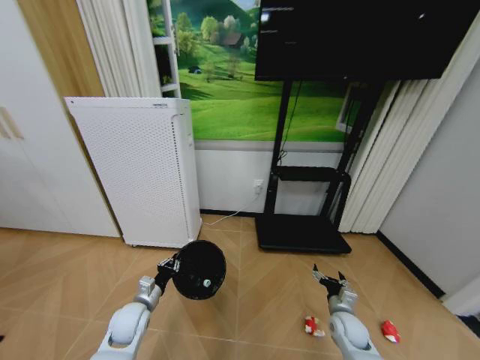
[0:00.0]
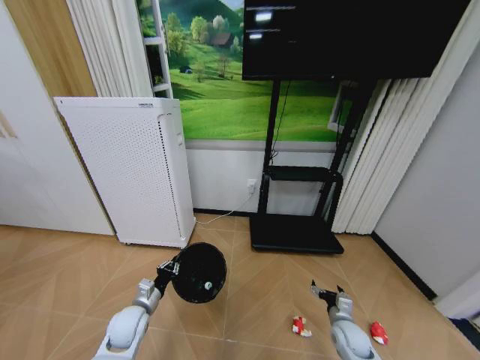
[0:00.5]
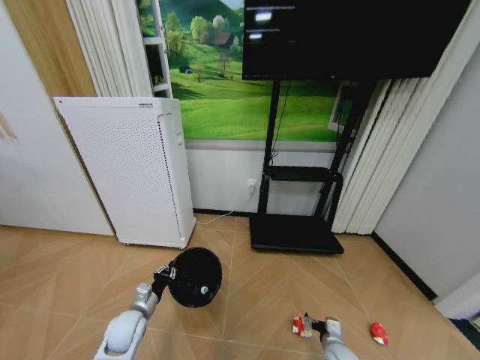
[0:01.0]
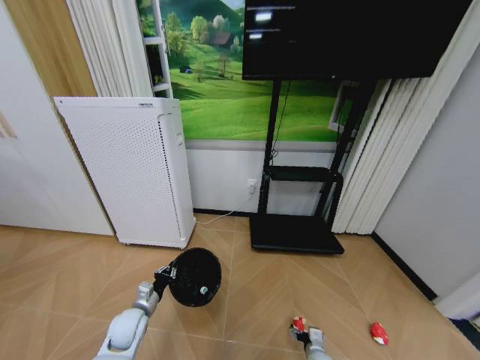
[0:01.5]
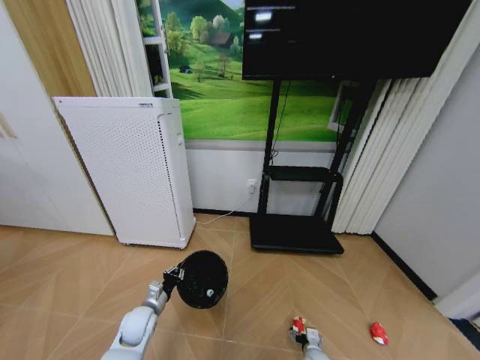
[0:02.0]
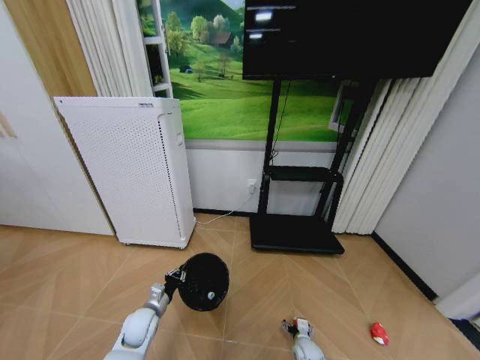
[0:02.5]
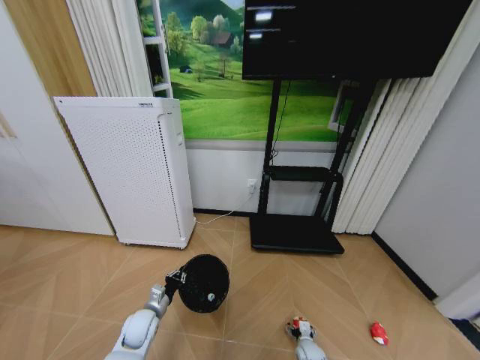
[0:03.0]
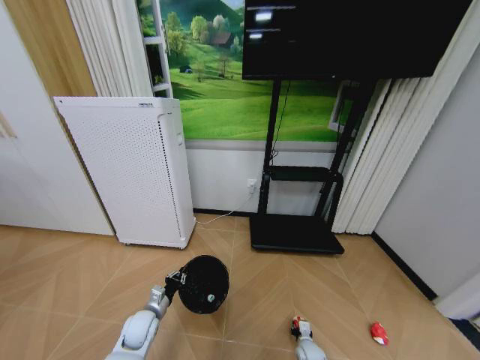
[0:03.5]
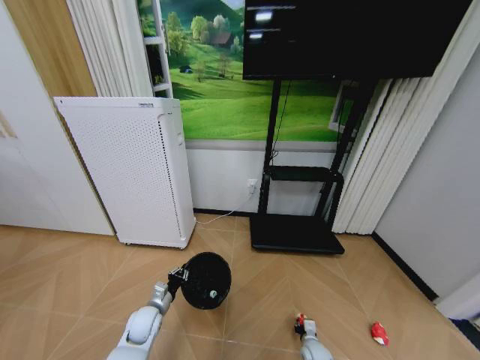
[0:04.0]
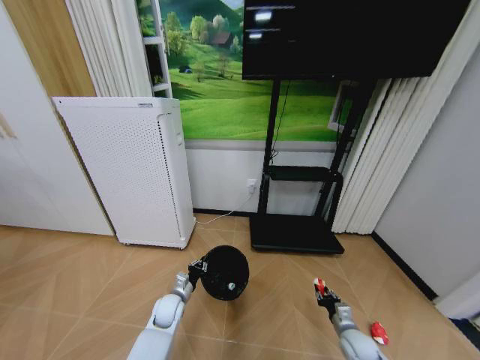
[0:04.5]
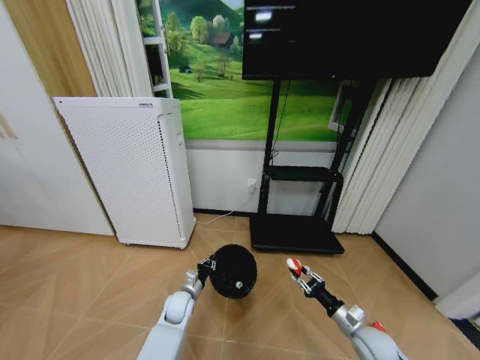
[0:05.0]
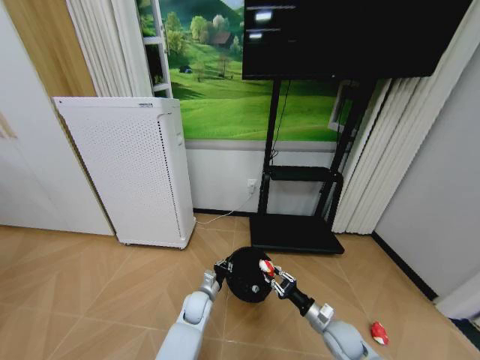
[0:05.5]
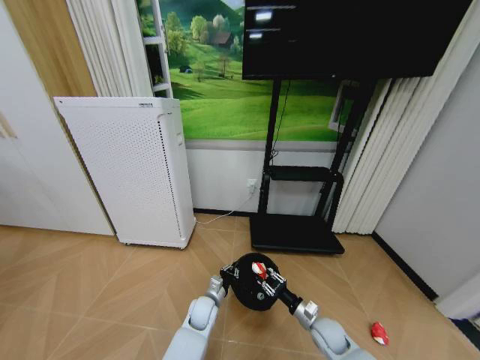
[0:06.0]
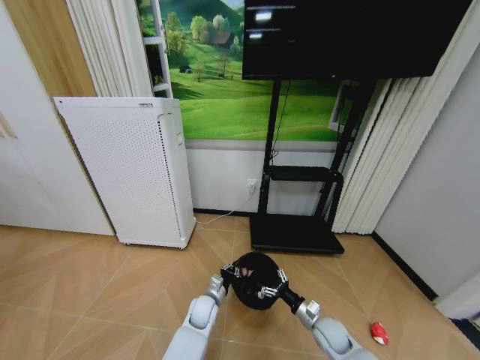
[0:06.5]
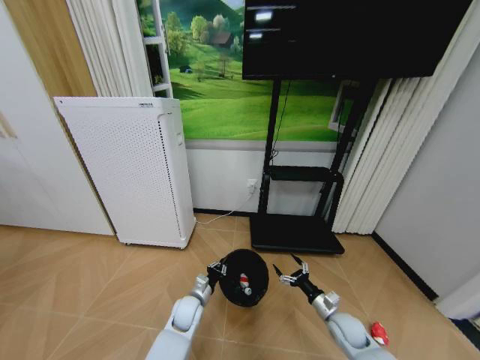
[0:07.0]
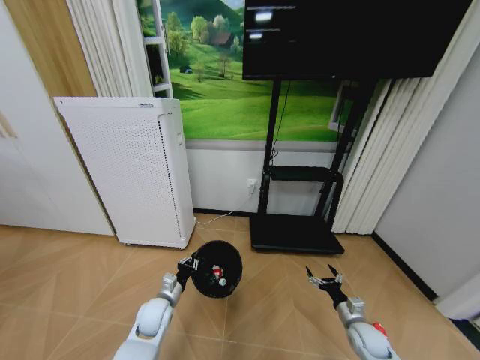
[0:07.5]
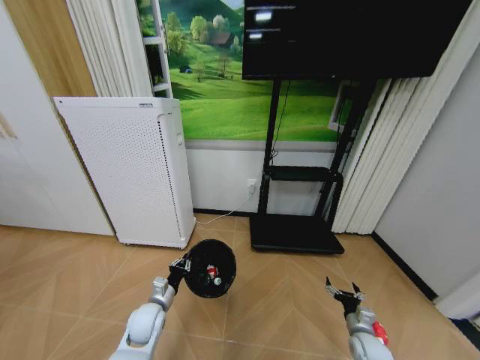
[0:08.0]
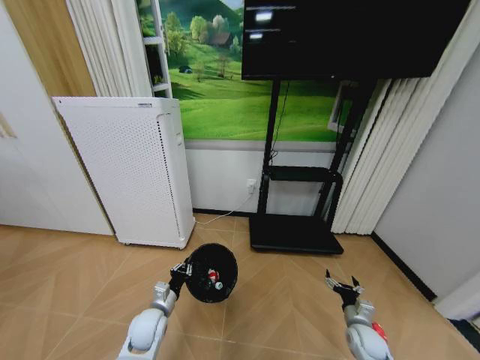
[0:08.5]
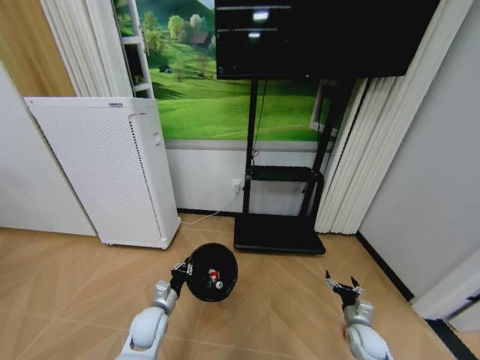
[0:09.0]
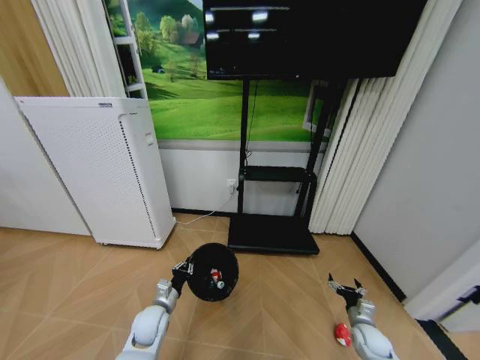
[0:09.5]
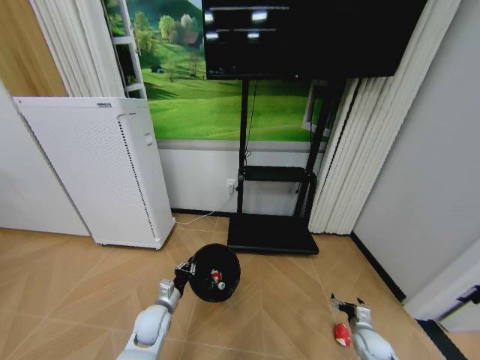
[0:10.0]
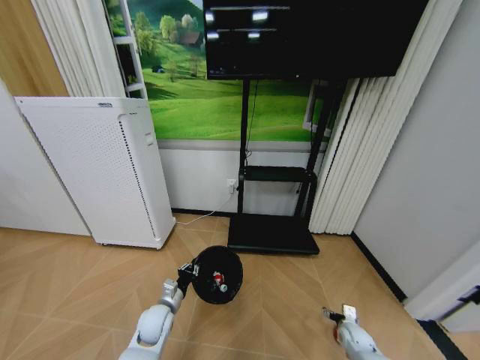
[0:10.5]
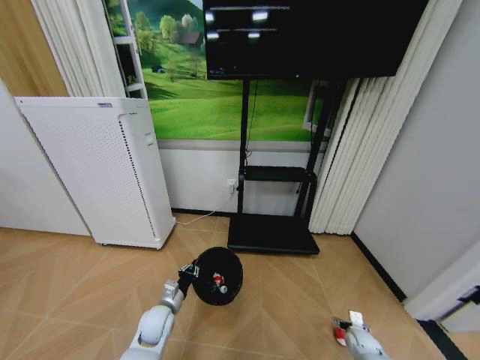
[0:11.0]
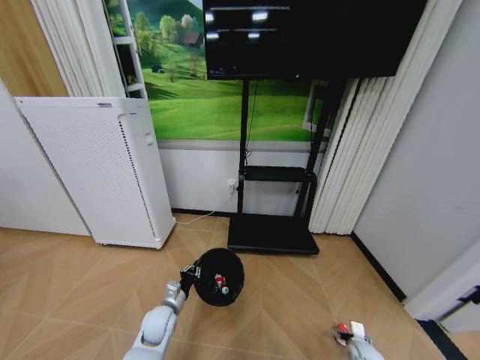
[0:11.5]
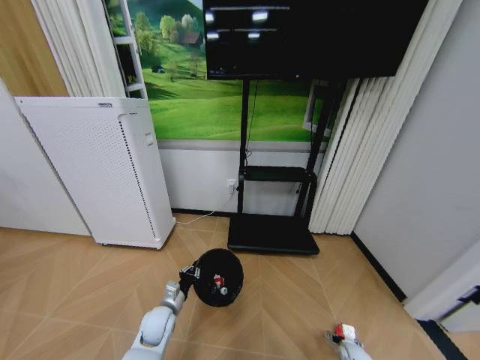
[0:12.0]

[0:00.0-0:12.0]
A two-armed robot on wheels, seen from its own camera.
Task of the whole recording: Pick up the trash bin and place the garbage on the floor into it.
0:00.0 to 0:02.0: The right gripper is displaced downward, to the left and backward by approximately 15 cm.
0:02.0 to 0:04.0: The right gripper closes its fingers.
0:04.0 to 0:06.0: The left gripper shifts some 20 cm to the right, while the right gripper goes some 15 cm upward.
0:06.0 to 0:08.0: The right gripper goes roughly 10 cm to the right, and opens its fingers, while the left gripper goes approximately 15 cm to the left and upward.
0:10.0 to 0:12.0: The right gripper travels downward by approximately 10 cm.

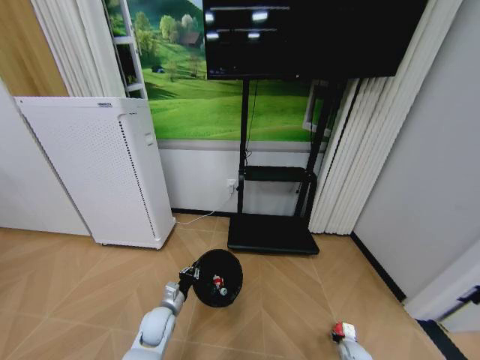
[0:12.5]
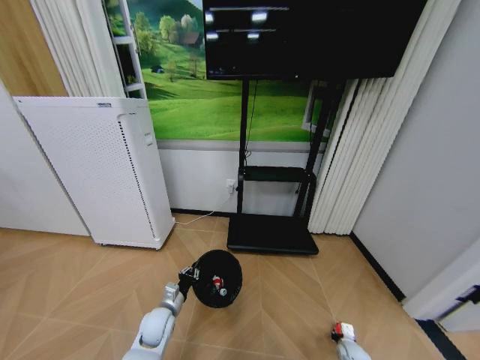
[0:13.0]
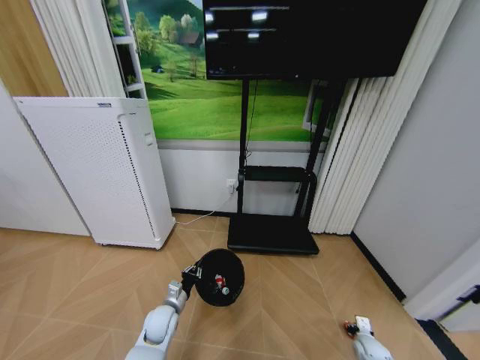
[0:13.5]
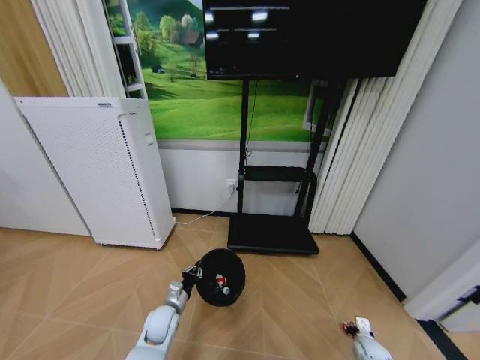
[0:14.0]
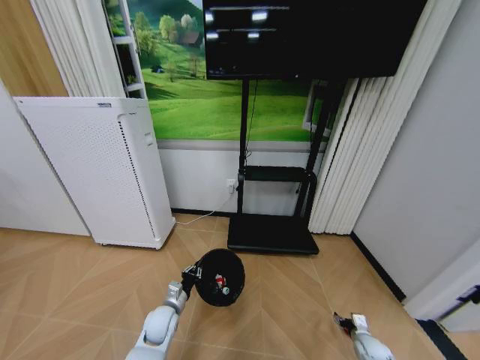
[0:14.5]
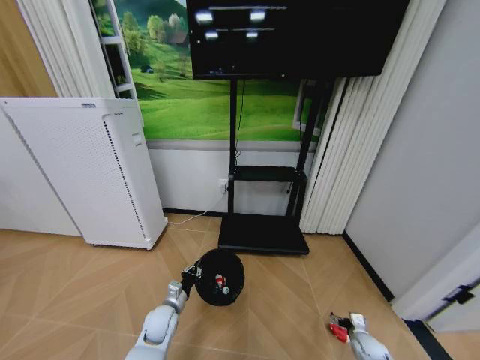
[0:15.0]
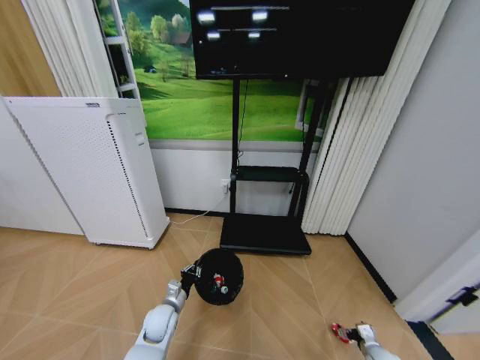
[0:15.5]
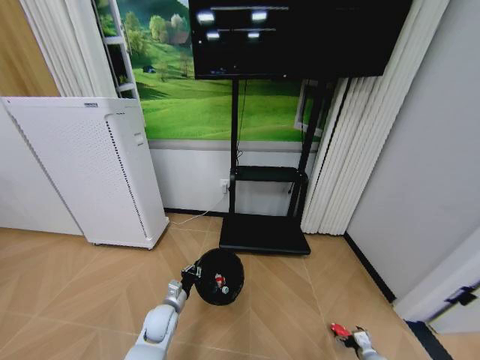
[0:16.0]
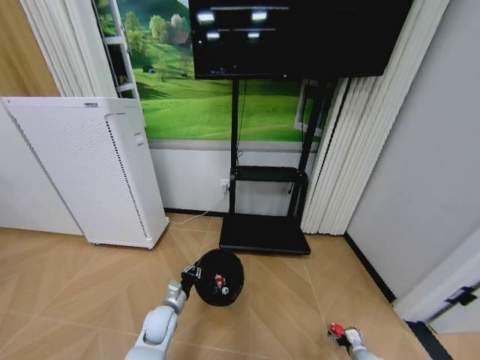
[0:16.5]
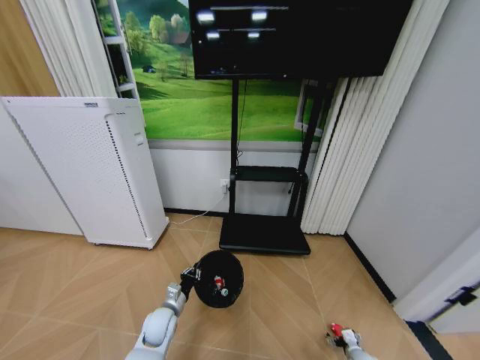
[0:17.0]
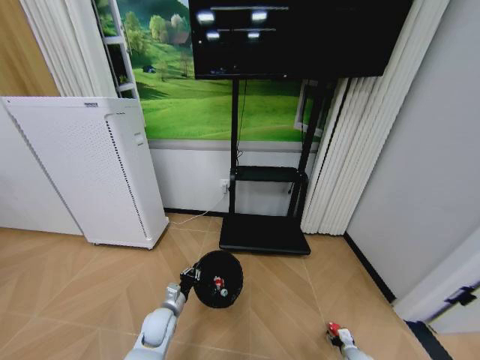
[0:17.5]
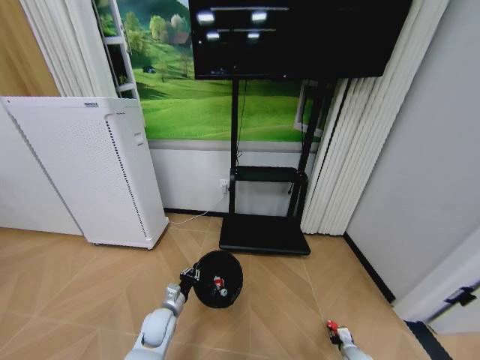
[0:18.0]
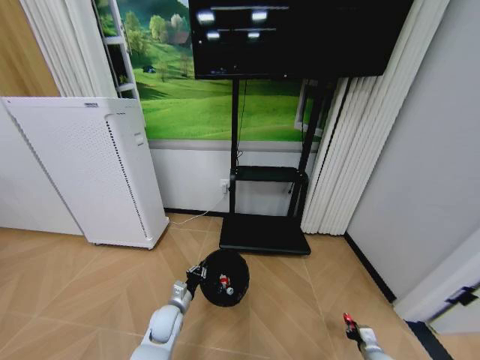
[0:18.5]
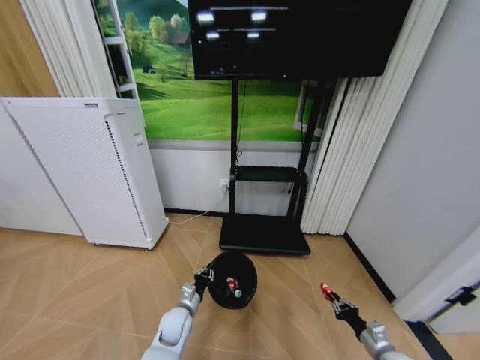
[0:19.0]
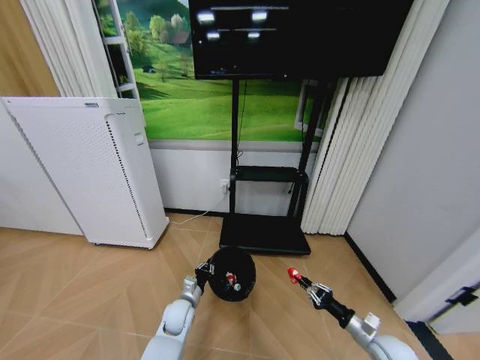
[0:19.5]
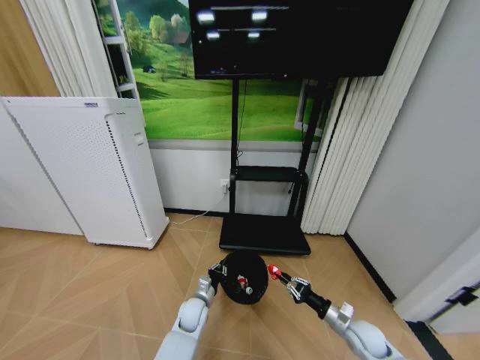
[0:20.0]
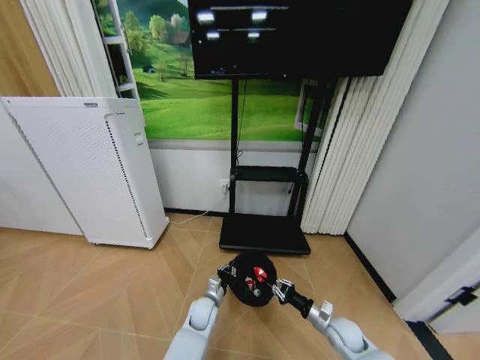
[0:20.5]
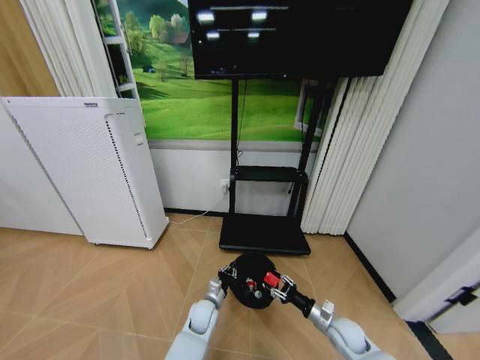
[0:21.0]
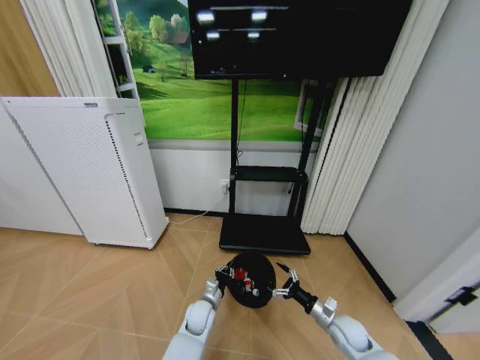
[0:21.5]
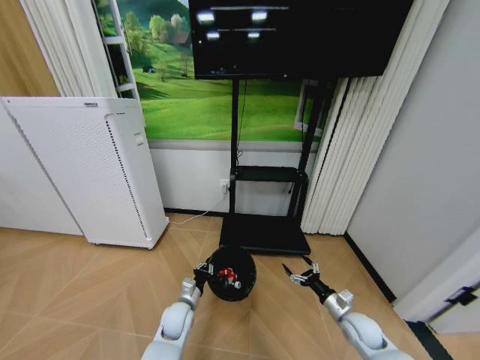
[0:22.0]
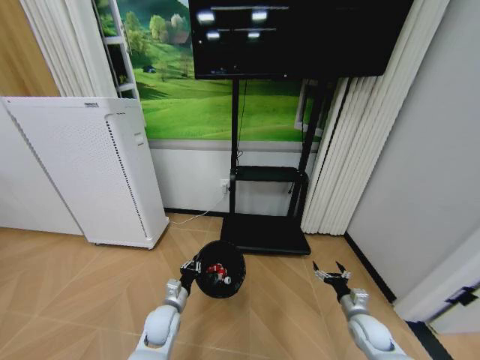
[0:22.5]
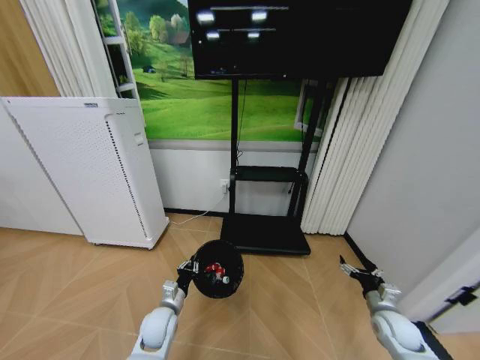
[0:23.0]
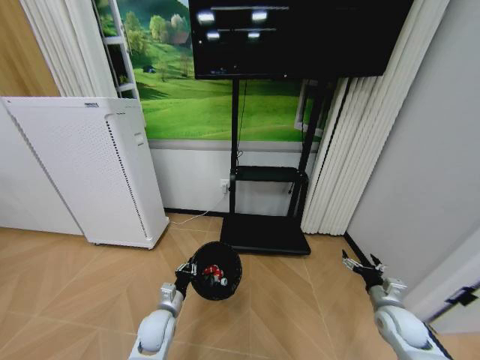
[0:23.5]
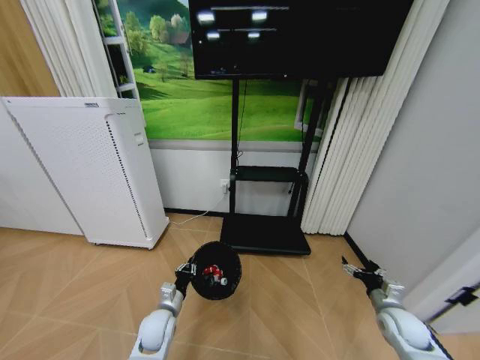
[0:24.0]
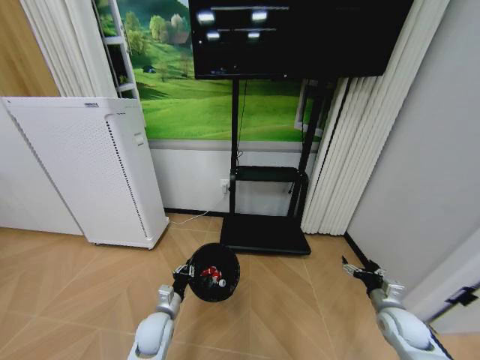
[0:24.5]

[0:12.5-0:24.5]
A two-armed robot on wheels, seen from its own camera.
Task of the whole recording: Pick up the trash bin and place the garbage on the floor into it.
0:12.5 to 0:14.5: The right gripper travels upward by some 5 cm, and closes, then opens again.
0:14.5 to 0:16.5: The right gripper changes place by some 5 cm.
0:16.5 to 0:18.5: The right gripper closes up.
0:18.5 to 0:20.5: The right gripper heads to the left, upward and forward, covering about 20 cm. The left gripper heads to the right, covering approximately 10 cm.
0:20.5 to 0:22.5: The right gripper heads to the right, covering roughly 5 cm, and opens; the left gripper is displaced to the left and upward by about 10 cm.
0:22.5 to 0:24.5: The right gripper travels upward and to the right by roughly 10 cm.

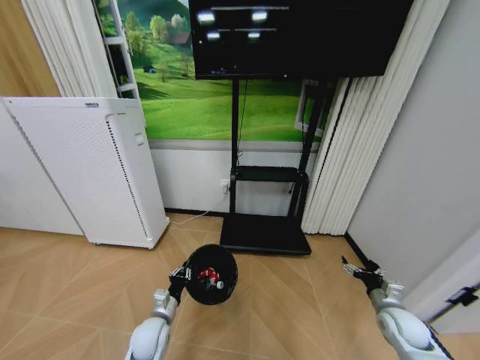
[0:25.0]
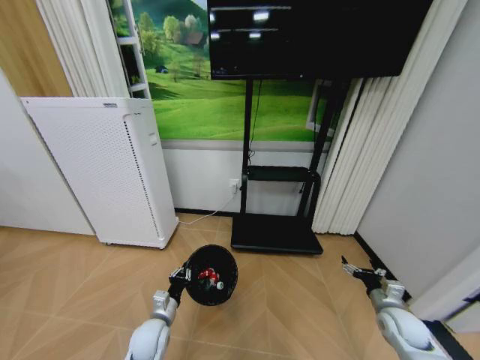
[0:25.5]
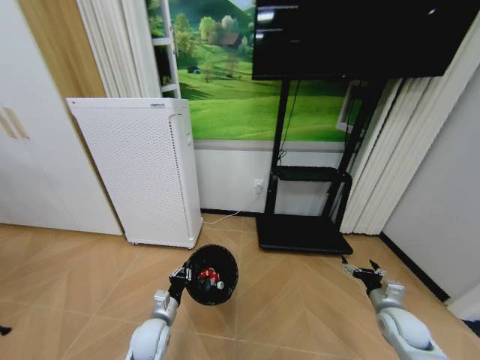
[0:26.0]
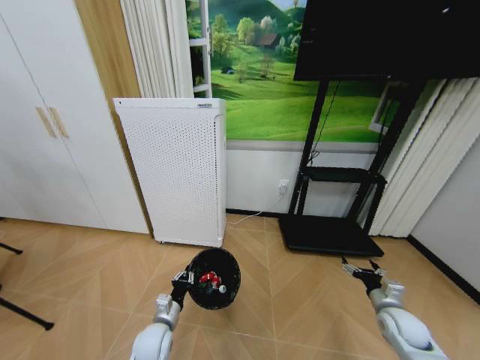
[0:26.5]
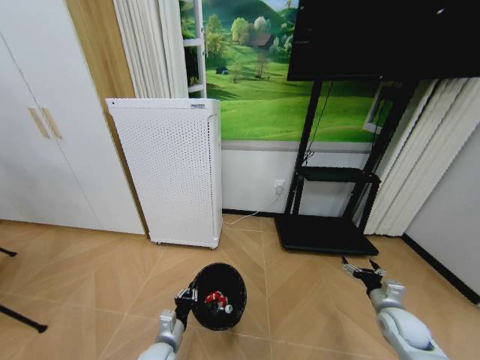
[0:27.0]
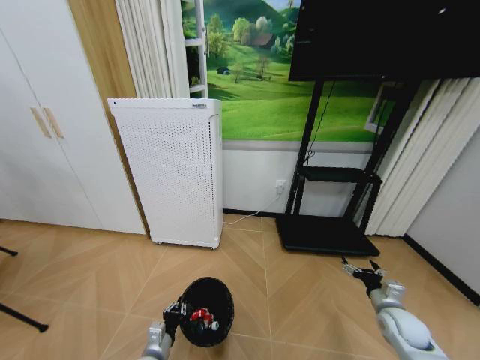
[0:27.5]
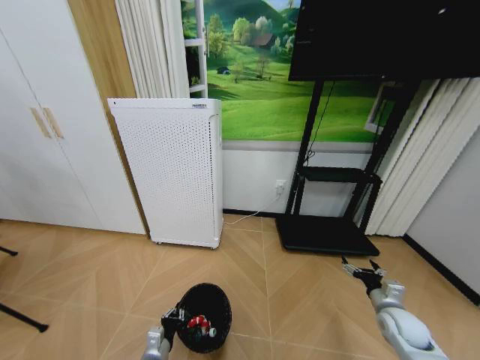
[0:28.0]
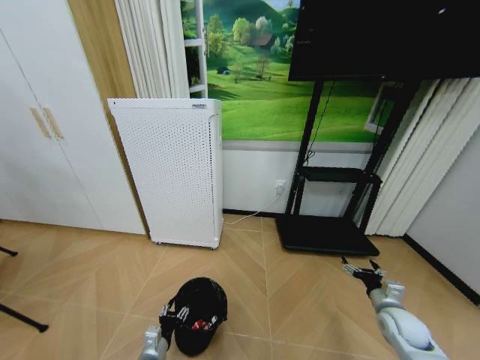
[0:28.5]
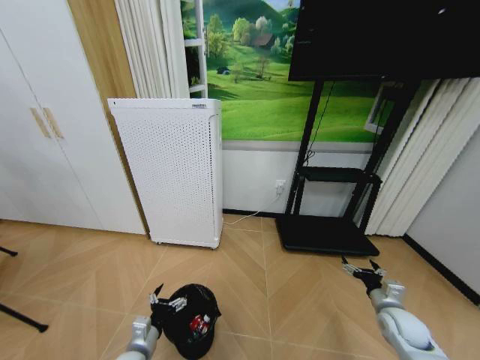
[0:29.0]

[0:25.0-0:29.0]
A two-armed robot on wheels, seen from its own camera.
Task of the whole recording: Pick up the trash bin and place the garbage on the floor into it.
0:25.0 to 0:27.0: The left gripper shifts about 5 cm backward.
0:27.0 to 0:29.0: The left gripper shifts about 5 cm to the left, and opens.
